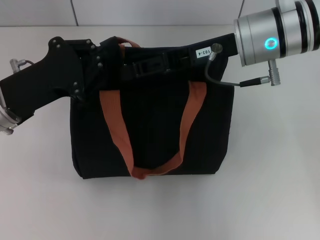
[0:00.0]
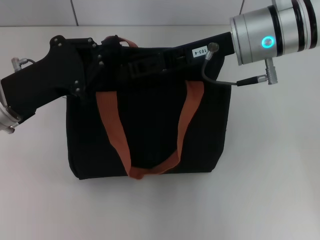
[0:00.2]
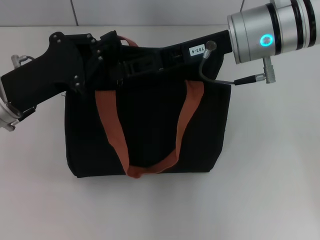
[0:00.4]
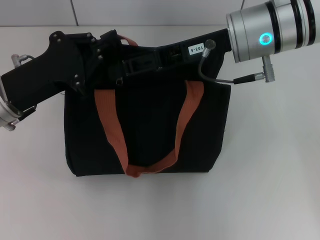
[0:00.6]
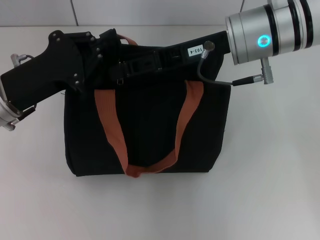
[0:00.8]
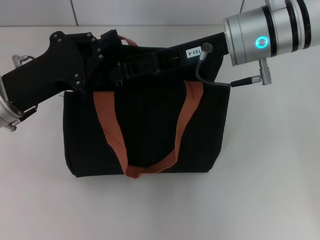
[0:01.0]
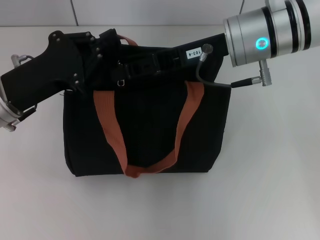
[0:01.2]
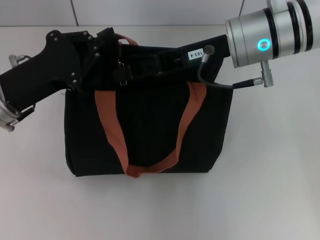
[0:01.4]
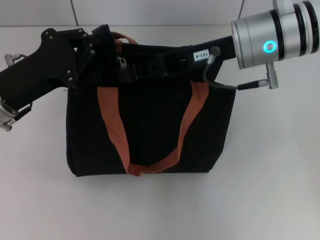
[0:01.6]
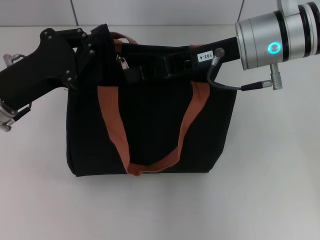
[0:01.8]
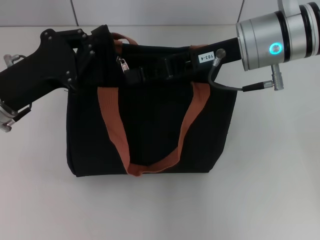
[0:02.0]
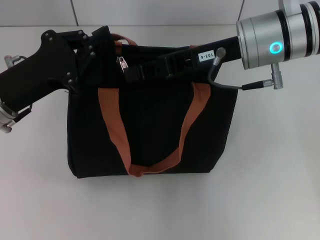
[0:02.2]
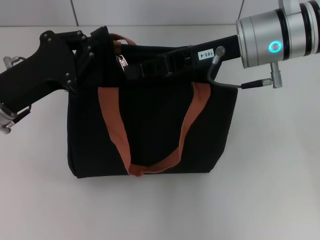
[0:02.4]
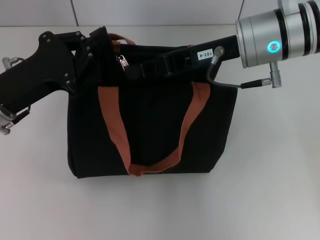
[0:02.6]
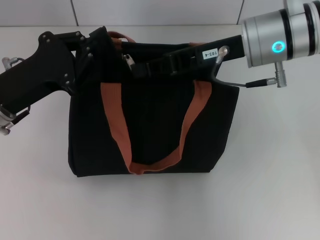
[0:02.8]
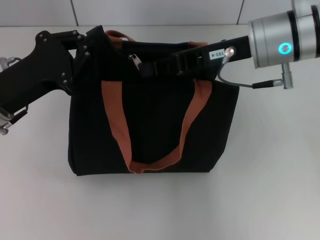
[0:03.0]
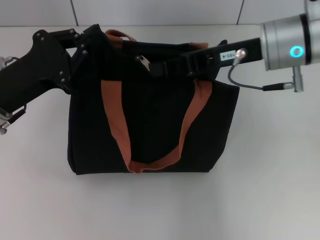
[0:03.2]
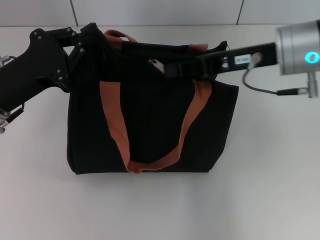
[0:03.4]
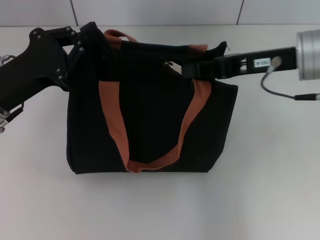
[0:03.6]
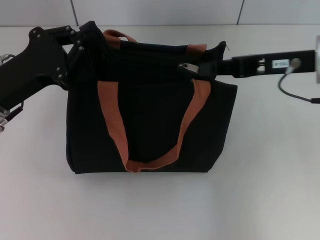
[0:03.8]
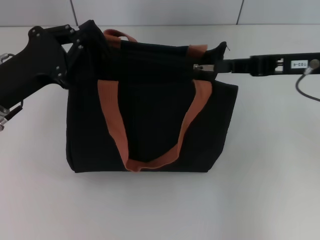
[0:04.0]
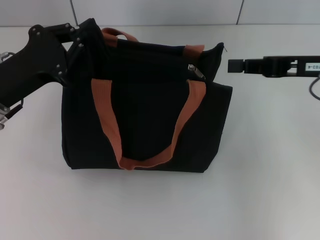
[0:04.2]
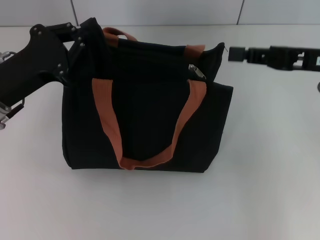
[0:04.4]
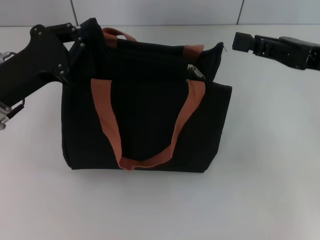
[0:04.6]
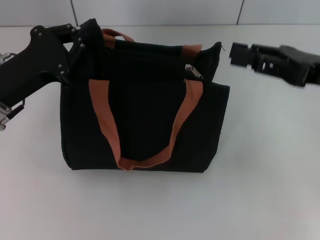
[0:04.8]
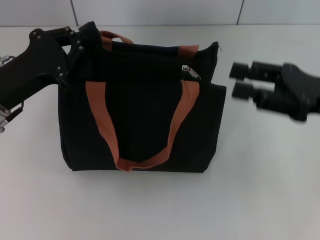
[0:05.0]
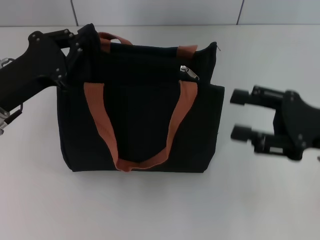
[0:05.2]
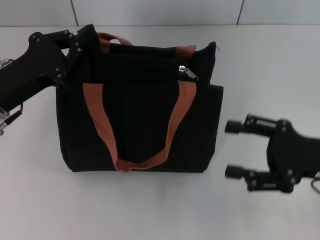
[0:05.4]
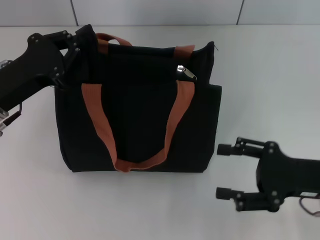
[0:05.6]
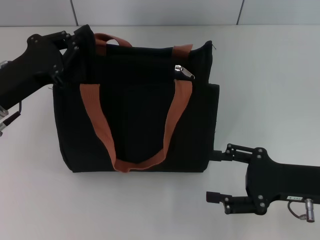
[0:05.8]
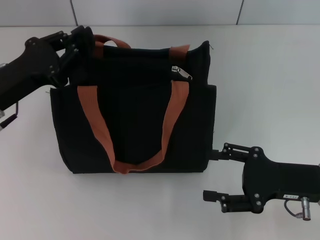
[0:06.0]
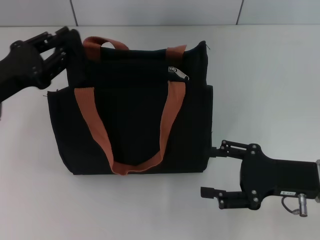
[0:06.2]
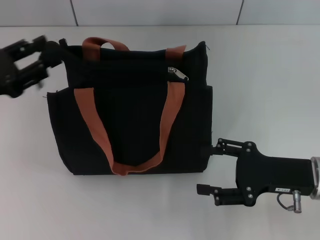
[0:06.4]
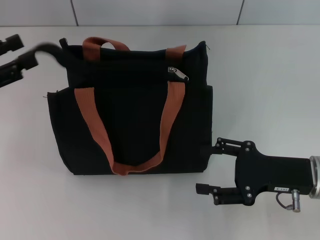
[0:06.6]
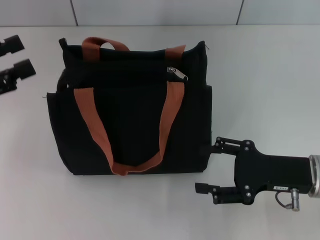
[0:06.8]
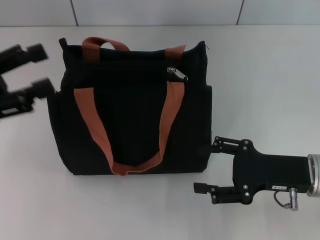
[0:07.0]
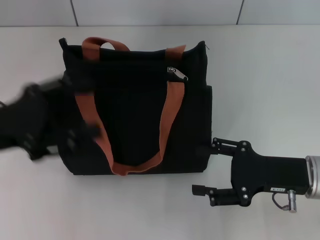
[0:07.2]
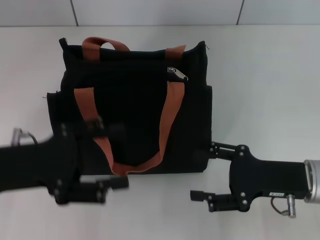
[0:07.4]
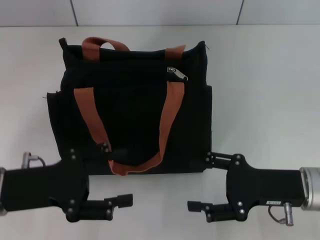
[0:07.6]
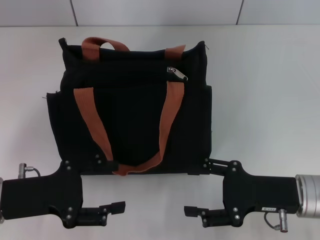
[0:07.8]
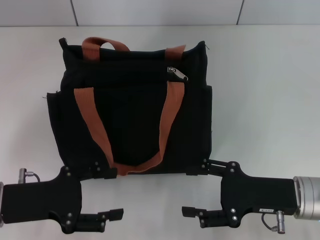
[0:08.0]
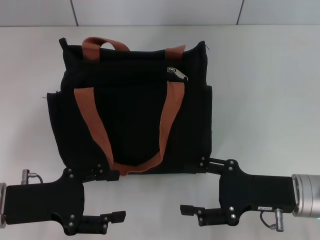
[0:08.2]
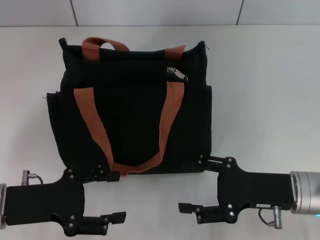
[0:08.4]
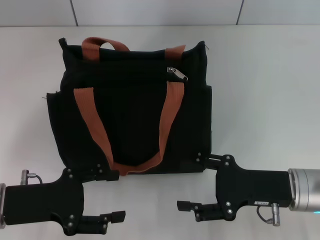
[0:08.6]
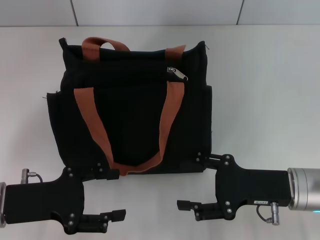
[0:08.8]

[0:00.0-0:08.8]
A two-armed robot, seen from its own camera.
Step, 0:00.0 to 0:04.2: Pull up the zipper with your right hand.
Step, 0:04.6 to 0:06.8: Grab the zipper with your left hand.
0:00.0 to 0:01.4: Both grippers stay about where they are.
0:01.4 to 0:03.0: There are only small adjustments of the grippers.
0:03.0 to 0:04.4: The right gripper is displaced to the right by some 10 cm.
0:04.4 to 0:05.8: The right gripper shifts about 15 cm downward and backward, and opens.
0:05.8 to 0:07.4: The left gripper is displaced backward by some 5 cm, reaches some 10 cm to the left, then returns, and opens its fingers.
0:07.4 to 0:08.8: The left gripper goes about 5 cm downward.

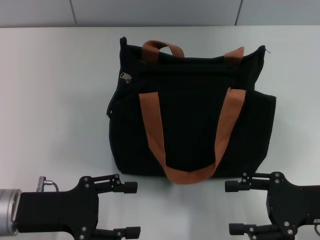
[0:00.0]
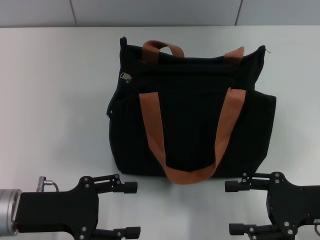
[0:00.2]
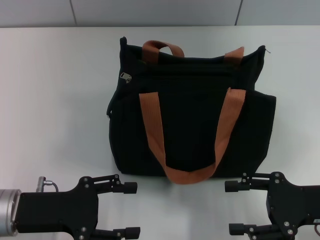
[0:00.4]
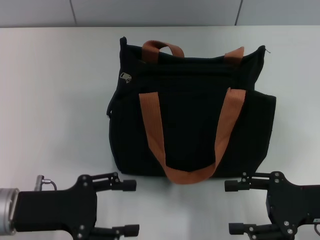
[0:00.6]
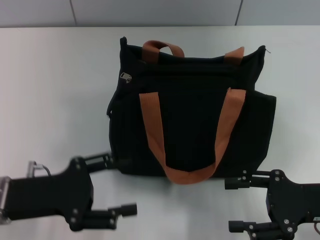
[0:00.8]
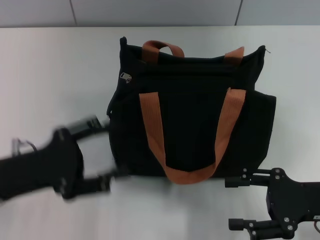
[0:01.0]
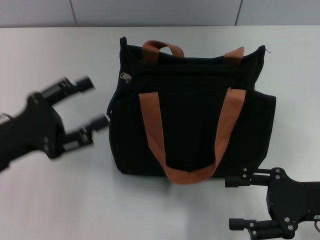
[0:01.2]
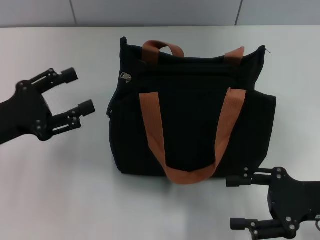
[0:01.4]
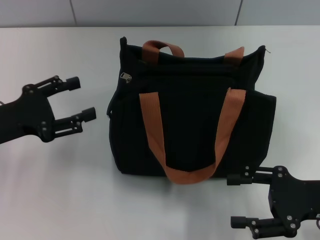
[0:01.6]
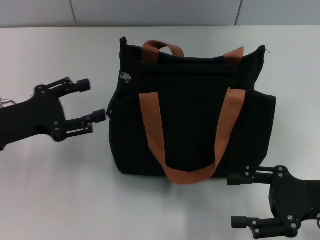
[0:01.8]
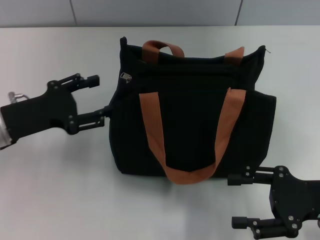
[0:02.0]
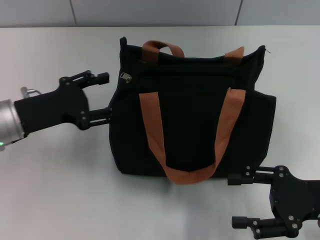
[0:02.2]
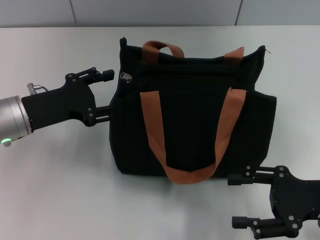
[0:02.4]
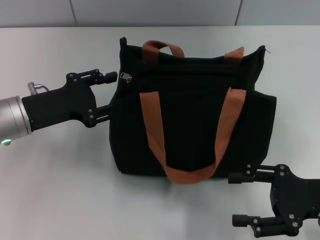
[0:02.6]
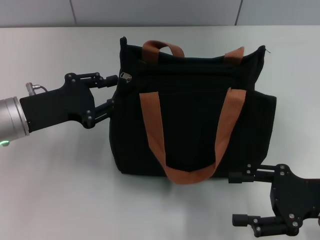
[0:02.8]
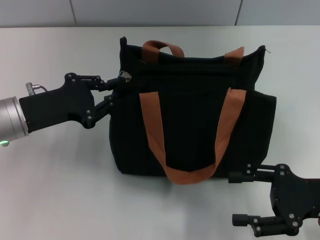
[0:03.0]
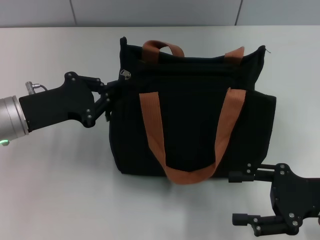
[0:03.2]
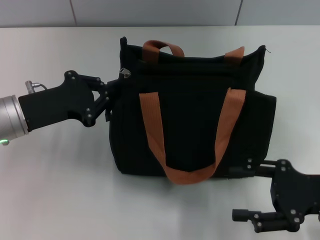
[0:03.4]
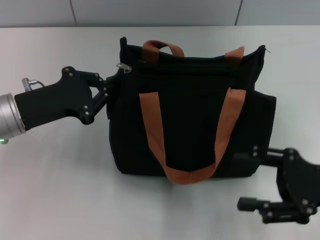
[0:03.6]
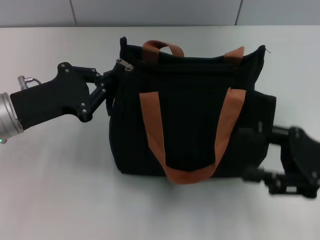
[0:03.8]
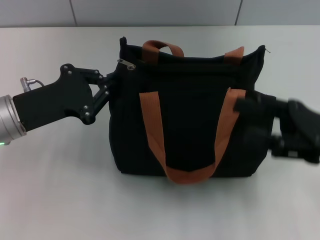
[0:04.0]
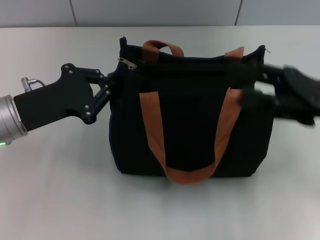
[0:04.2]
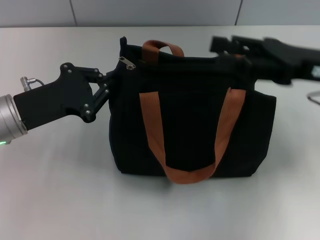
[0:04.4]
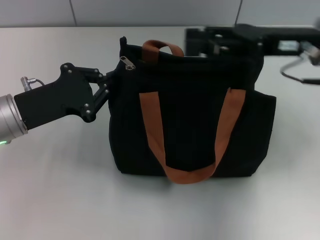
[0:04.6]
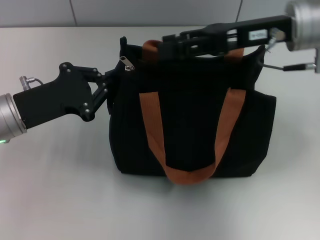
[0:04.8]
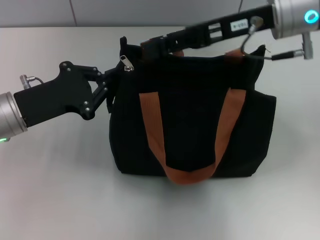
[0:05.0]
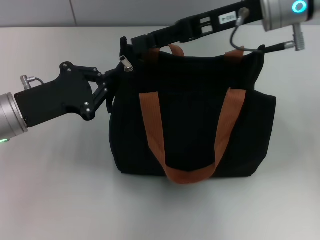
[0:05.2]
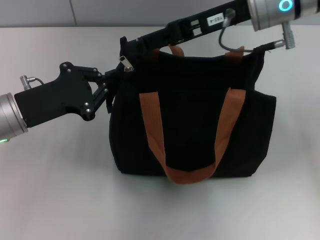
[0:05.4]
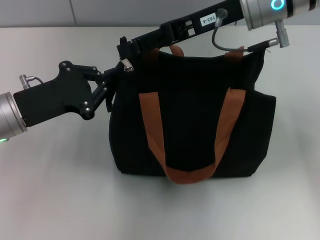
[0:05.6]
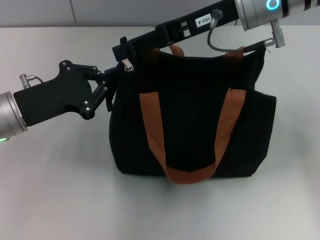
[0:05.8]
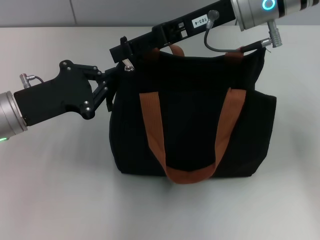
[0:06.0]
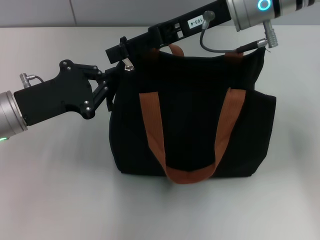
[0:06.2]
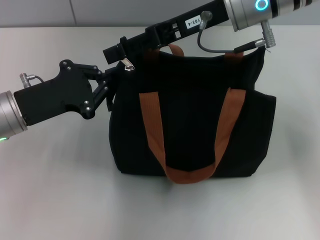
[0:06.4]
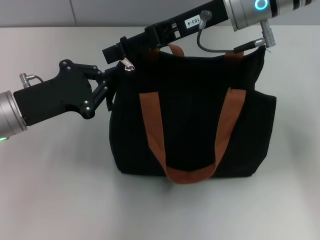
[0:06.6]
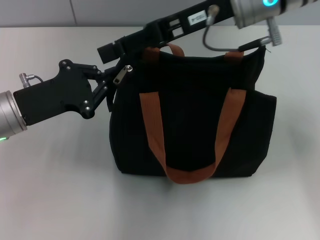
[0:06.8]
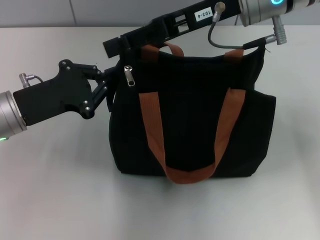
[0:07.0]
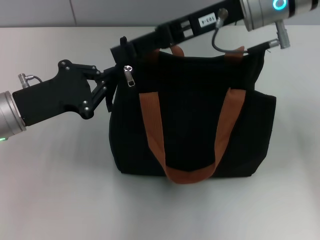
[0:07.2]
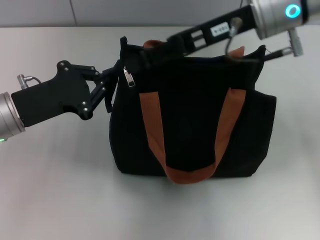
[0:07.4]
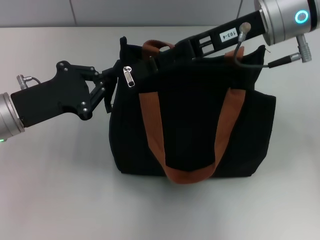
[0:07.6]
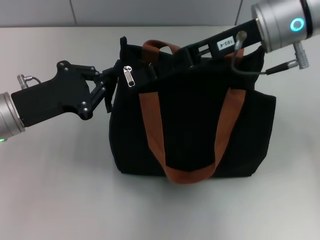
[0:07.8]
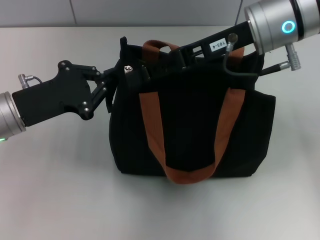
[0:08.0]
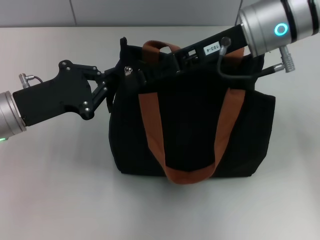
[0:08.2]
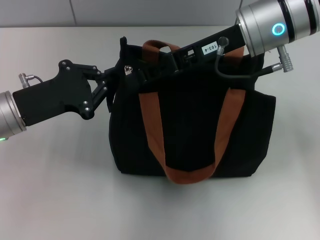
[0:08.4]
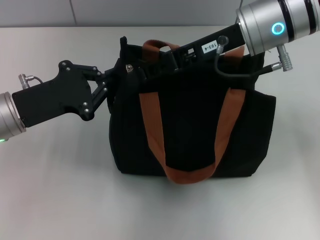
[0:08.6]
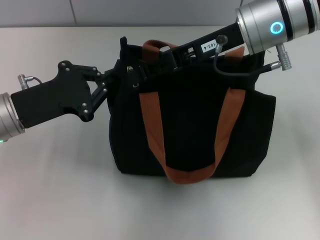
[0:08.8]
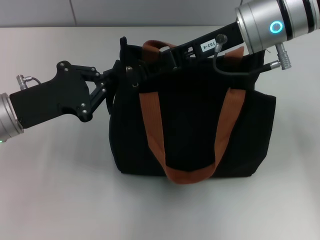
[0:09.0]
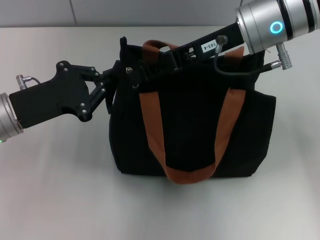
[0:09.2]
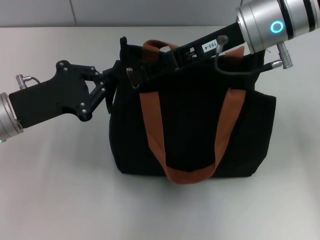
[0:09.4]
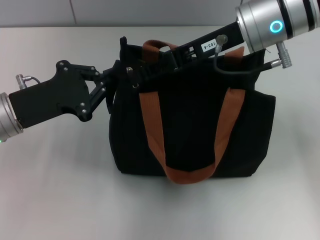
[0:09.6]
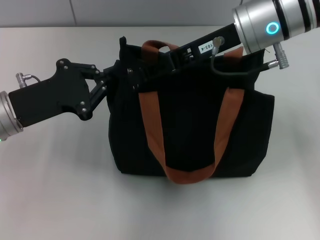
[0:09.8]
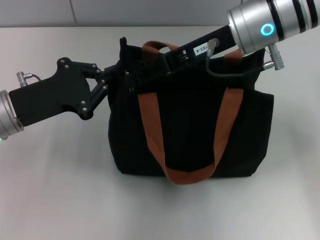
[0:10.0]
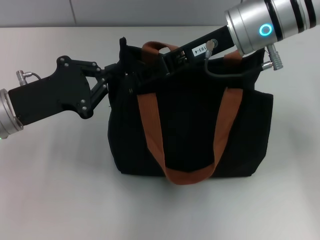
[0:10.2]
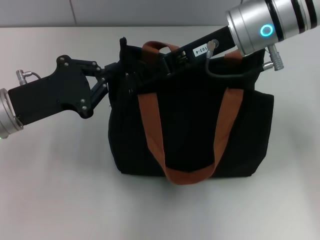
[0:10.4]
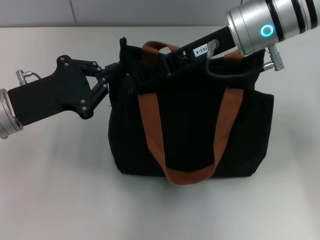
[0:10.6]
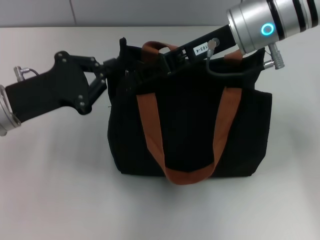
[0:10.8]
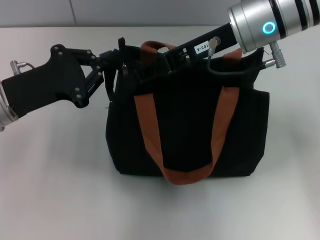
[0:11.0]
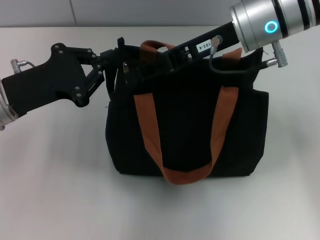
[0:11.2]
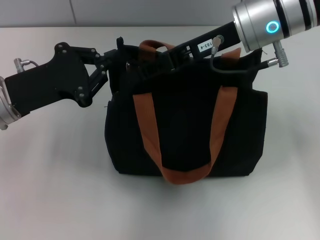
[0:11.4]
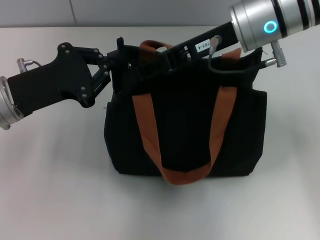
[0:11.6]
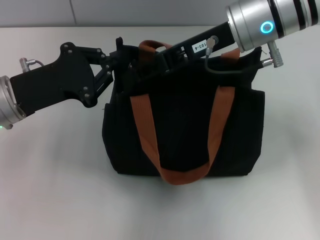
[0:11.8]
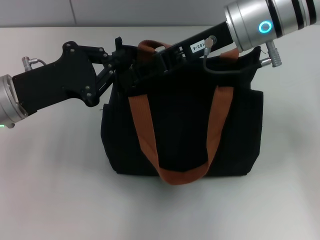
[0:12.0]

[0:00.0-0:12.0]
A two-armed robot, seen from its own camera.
0:00.0 to 0:01.6: The left gripper moves forward and to the left, roughly 10 cm.
0:01.6 to 0:03.0: The left gripper goes some 5 cm to the right, and closes.
0:03.0 to 0:04.4: The left gripper closes its fingers. Meanwhile the right gripper shifts roughly 15 cm forward and upward.
0:04.4 to 0:06.0: The right gripper moves to the left, forward and upward, roughly 15 cm.
0:06.0 to 0:07.6: The grippers move only a little.
0:07.6 to 0:09.0: The right gripper closes its fingers.
0:09.0 to 0:10.4: The two grippers keep their place.
0:10.4 to 0:12.0: There are only small adjustments of the grippers.

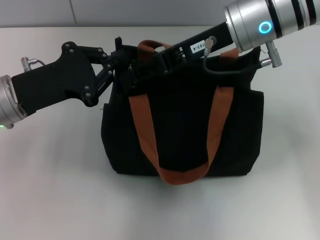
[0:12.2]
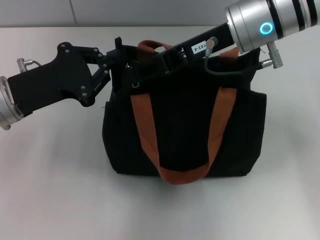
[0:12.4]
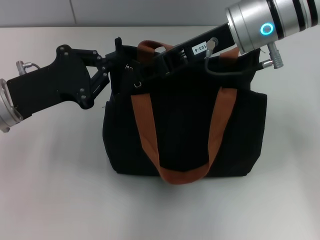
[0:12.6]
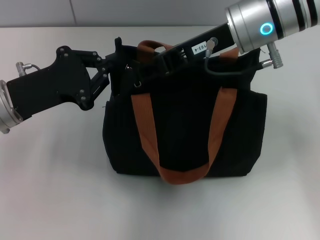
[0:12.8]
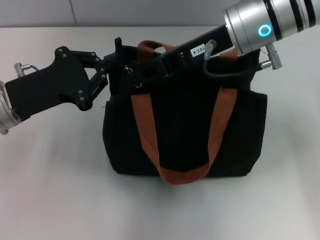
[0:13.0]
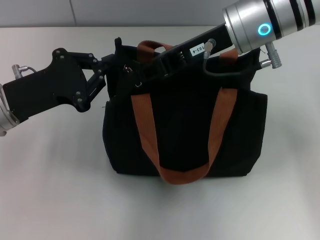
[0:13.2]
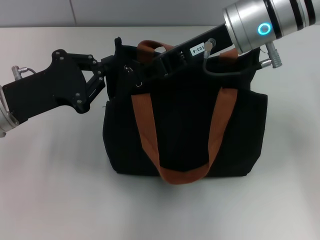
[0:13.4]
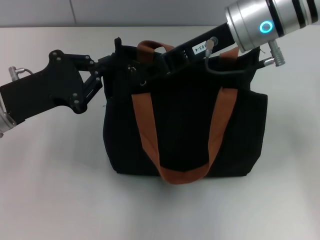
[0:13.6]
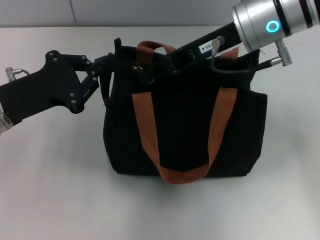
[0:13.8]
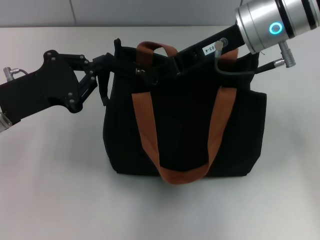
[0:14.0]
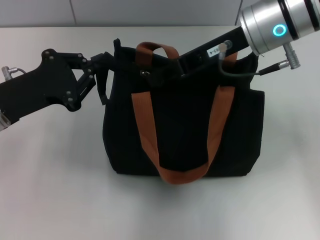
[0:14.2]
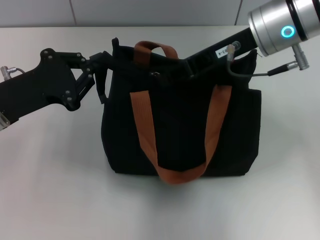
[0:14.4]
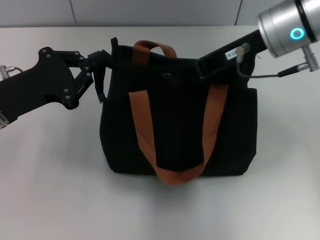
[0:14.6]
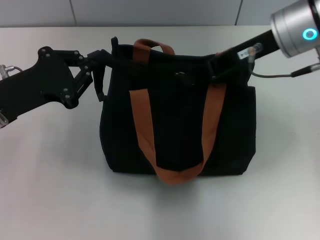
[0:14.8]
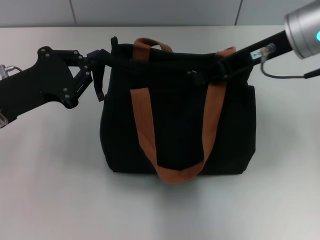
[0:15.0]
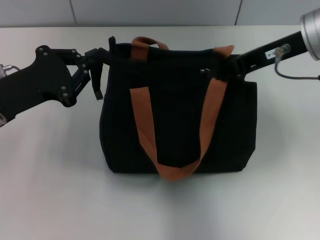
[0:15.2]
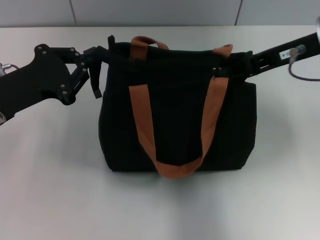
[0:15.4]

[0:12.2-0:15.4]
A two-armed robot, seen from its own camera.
0:12.2 to 0:13.8: The right gripper closes.
0:13.8 to 0:15.4: The right gripper shifts some 10 cm to the right.
